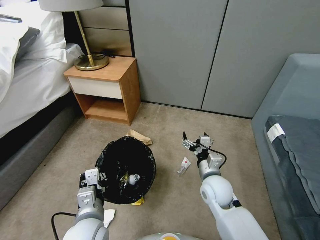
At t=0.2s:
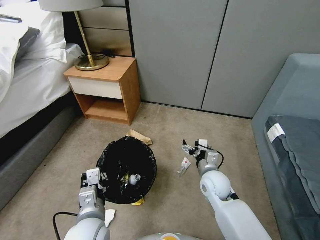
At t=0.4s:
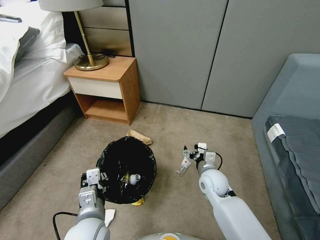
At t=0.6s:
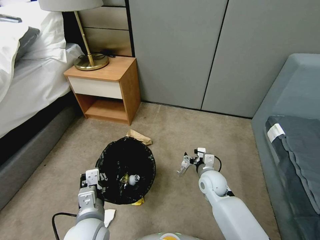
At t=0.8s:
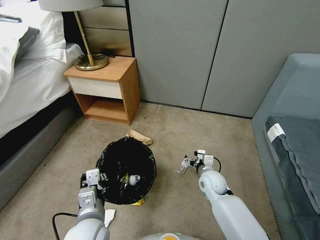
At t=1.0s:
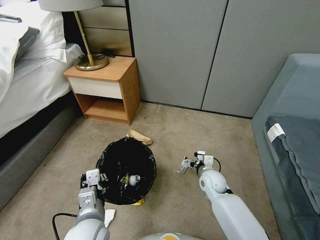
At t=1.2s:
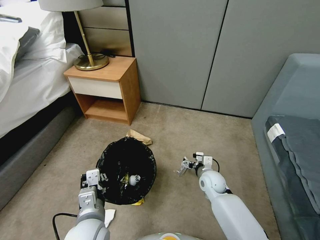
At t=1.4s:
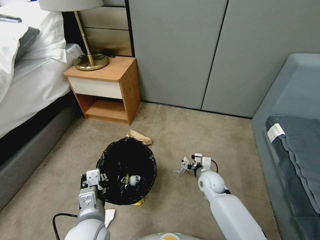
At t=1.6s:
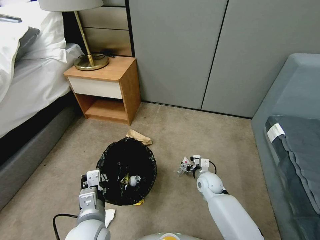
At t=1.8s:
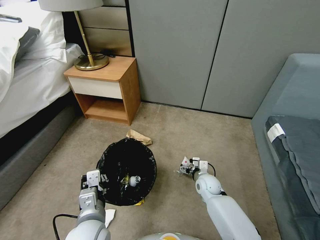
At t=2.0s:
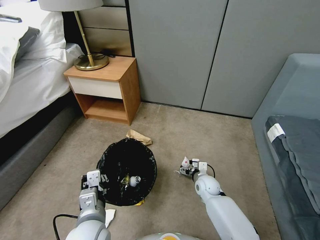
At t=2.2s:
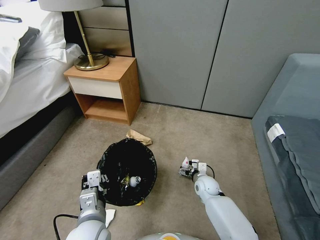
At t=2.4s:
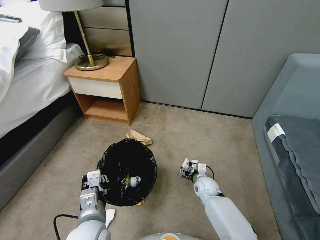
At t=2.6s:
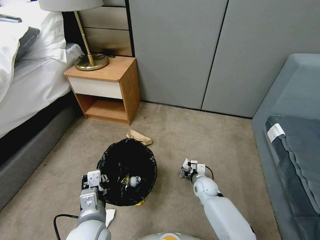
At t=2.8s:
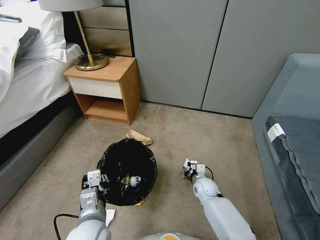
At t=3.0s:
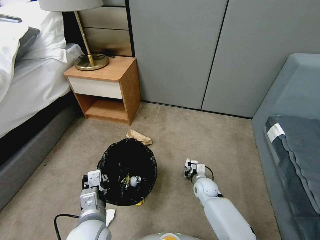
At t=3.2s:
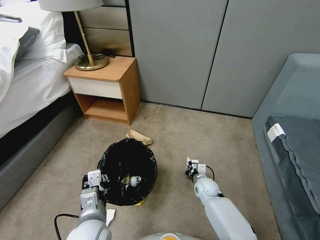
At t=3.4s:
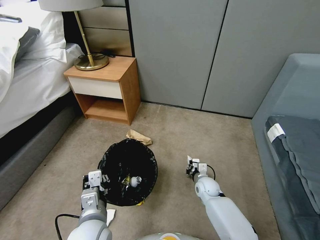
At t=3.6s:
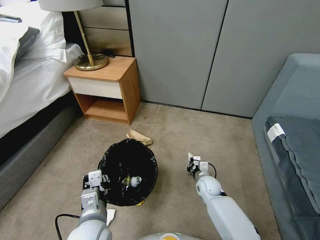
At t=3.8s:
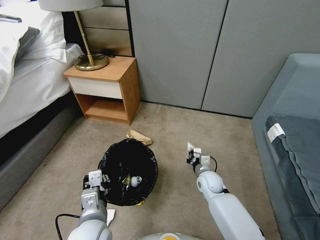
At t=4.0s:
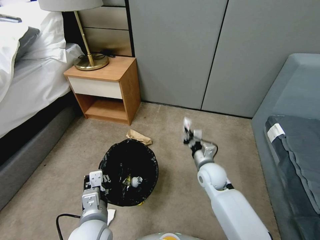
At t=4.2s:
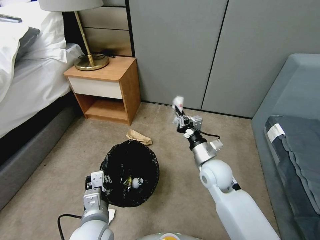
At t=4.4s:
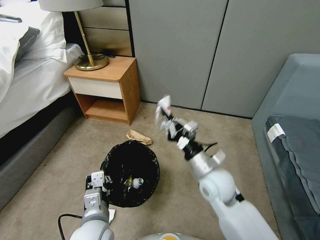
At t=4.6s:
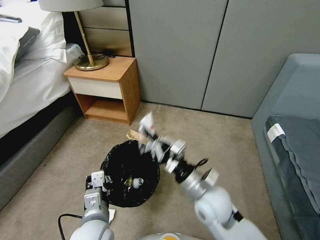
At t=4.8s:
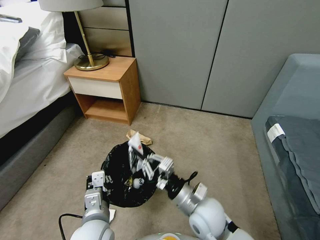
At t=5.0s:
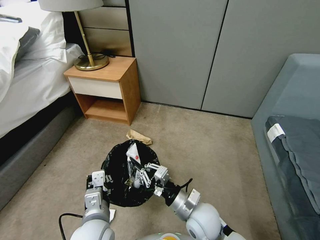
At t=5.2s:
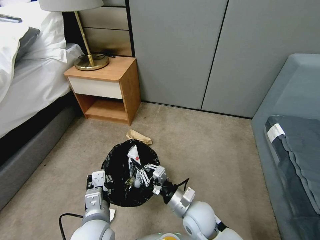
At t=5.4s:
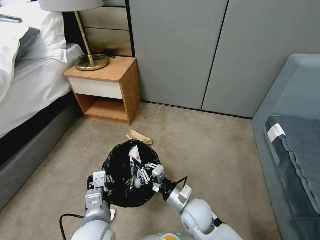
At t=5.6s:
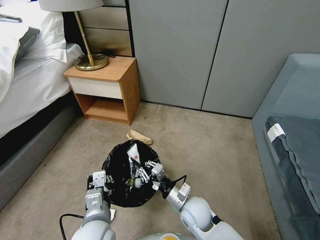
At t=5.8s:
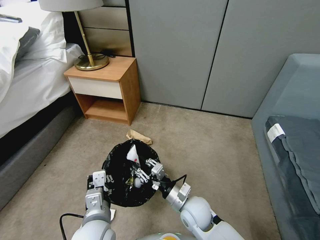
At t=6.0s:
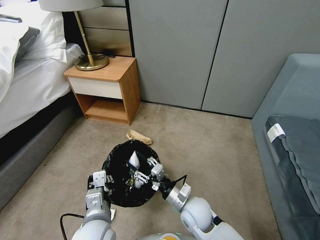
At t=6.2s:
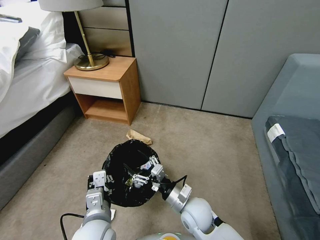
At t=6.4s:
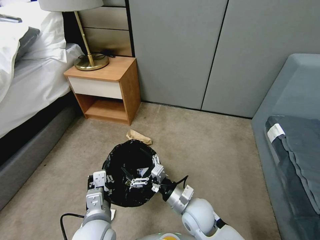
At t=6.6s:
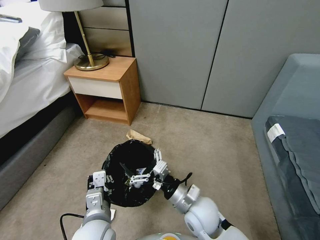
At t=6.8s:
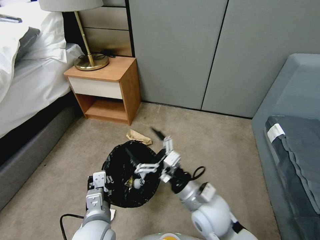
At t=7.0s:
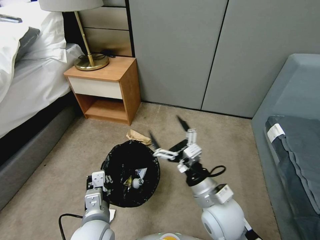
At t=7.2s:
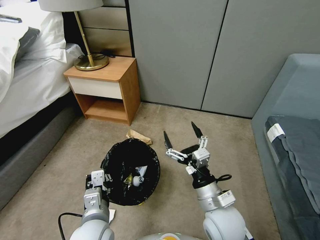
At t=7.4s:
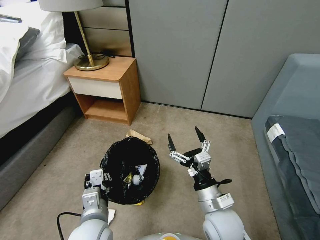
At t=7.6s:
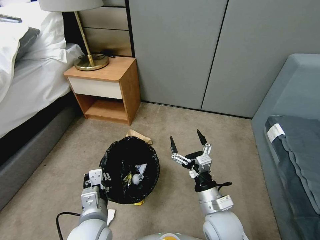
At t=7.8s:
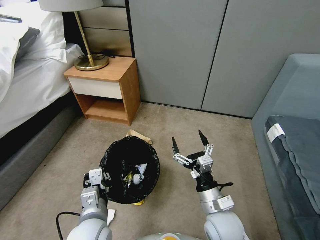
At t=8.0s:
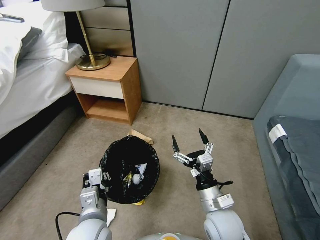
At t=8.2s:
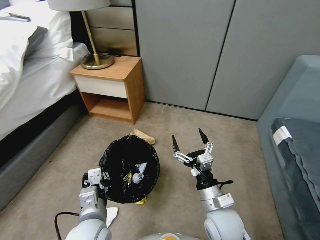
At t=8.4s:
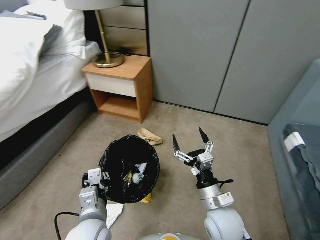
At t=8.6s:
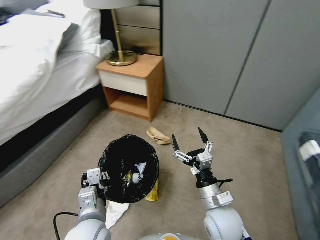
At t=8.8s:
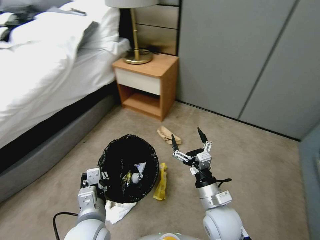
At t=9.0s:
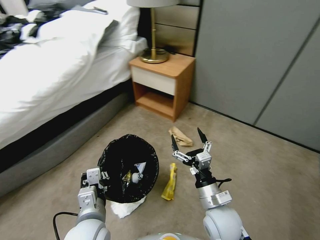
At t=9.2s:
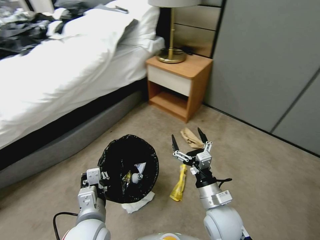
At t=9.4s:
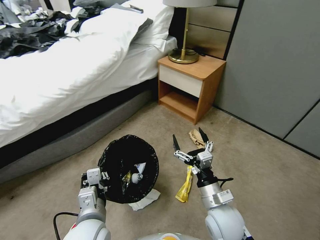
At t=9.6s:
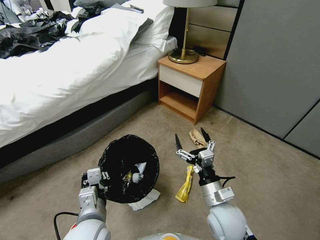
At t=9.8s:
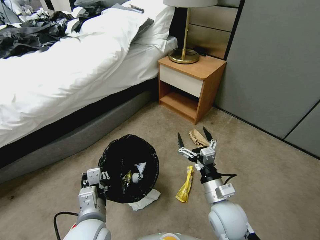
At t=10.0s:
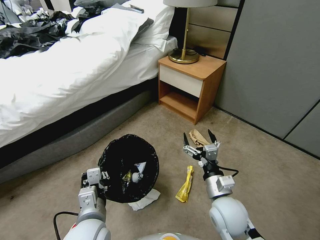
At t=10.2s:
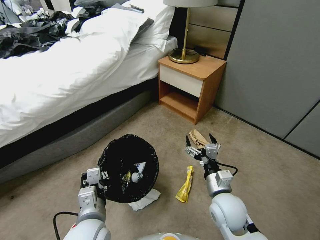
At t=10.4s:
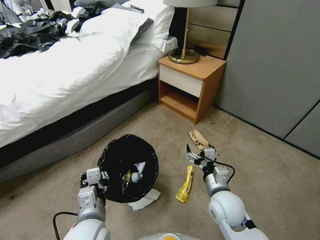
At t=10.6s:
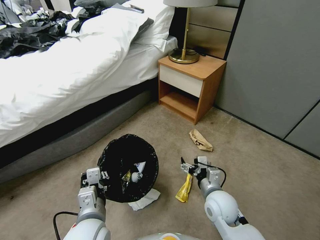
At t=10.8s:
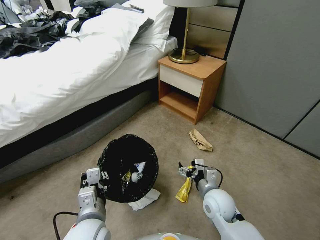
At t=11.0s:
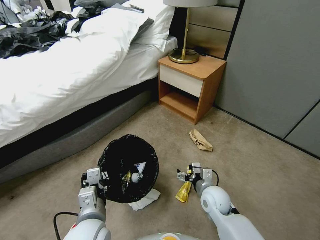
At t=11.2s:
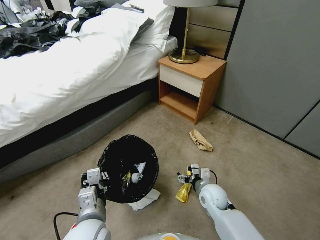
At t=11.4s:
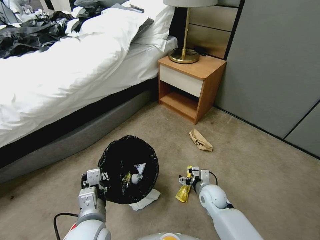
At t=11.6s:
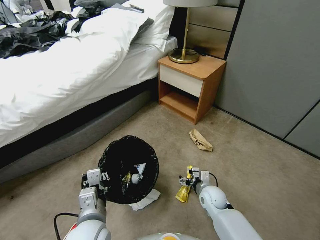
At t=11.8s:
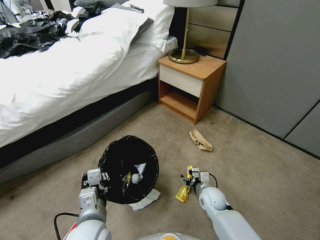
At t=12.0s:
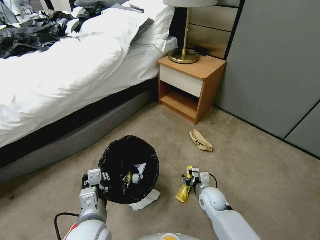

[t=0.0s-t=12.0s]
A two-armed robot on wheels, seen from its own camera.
Task of the whole recording: Pick up the trash bin, then pick up the garbage from the floor and place it into the trash bin.
t=0.0s to t=1.6s: The right gripper heads downward and forward, covering roughly 15 cm.
t=1.6s to t=3.0s: The right gripper heads downward, covering approximately 5 cm, and closes its fingers.
t=3.0s to t=4.4s: The right gripper goes about 25 cm upward.
t=4.4s to t=6.0s: The right gripper is displaced downward, to the left and backward by roughly 15 cm, and opens.
t=6.0s to t=7.6s: The right gripper shifts about 10 cm upward and to the right, and opens up.
t=10.4s to t=12.0s: The right gripper moves downward and forward, some 15 cm, and closes up.

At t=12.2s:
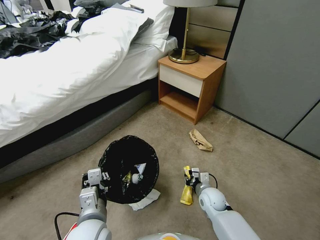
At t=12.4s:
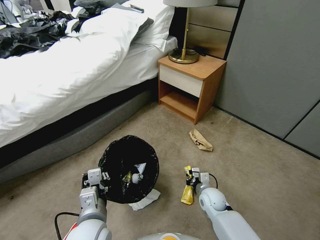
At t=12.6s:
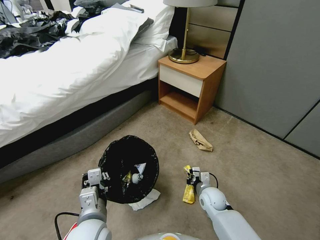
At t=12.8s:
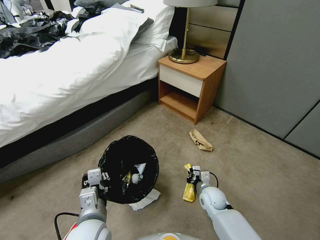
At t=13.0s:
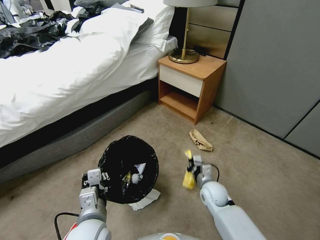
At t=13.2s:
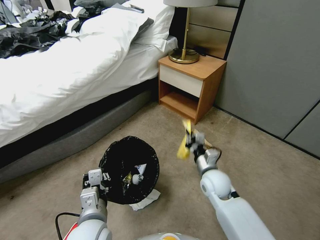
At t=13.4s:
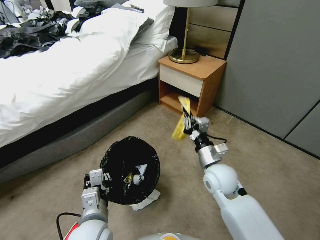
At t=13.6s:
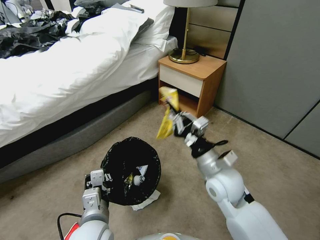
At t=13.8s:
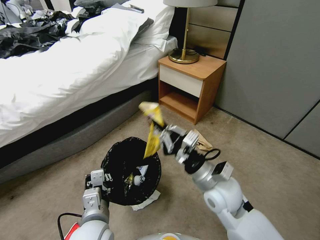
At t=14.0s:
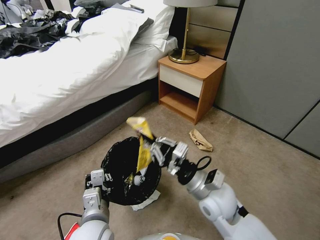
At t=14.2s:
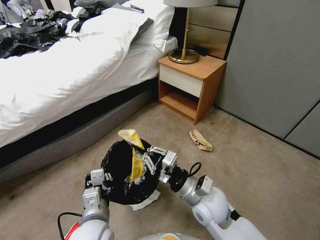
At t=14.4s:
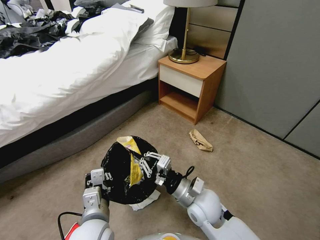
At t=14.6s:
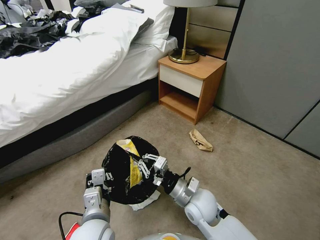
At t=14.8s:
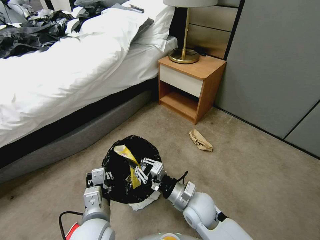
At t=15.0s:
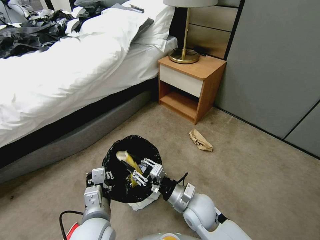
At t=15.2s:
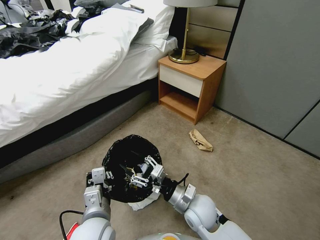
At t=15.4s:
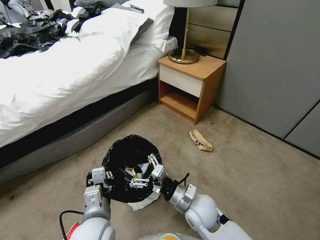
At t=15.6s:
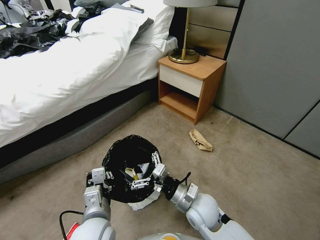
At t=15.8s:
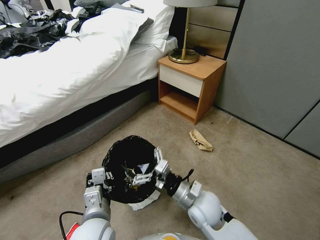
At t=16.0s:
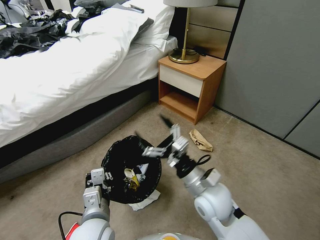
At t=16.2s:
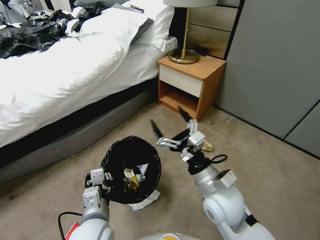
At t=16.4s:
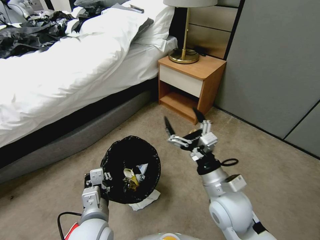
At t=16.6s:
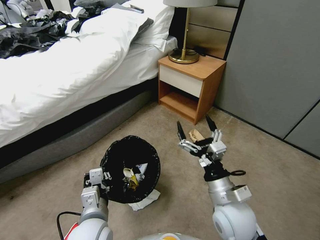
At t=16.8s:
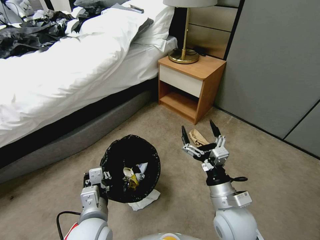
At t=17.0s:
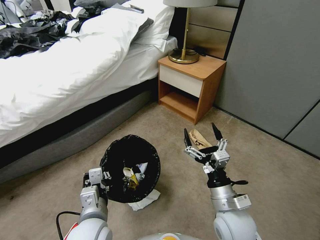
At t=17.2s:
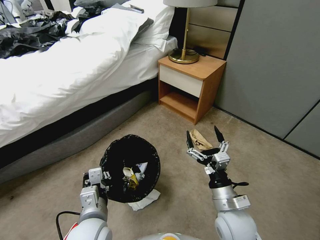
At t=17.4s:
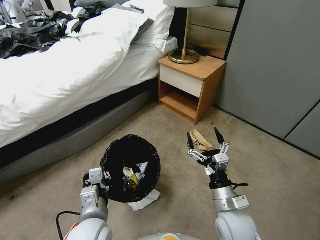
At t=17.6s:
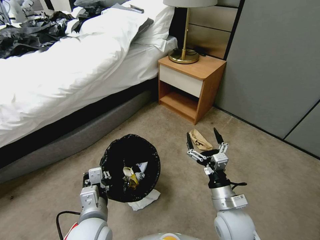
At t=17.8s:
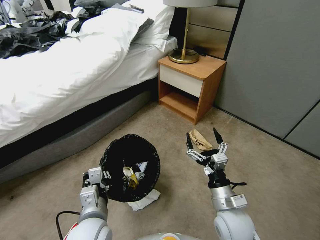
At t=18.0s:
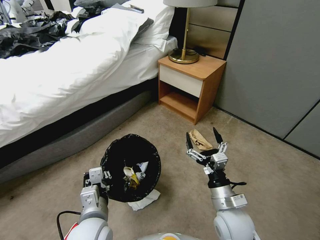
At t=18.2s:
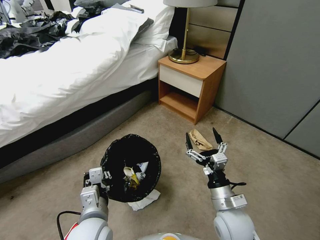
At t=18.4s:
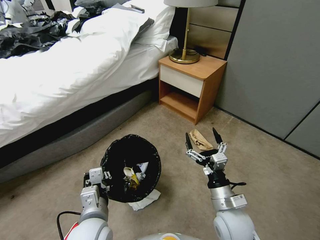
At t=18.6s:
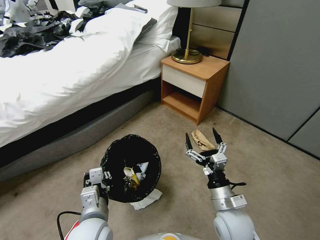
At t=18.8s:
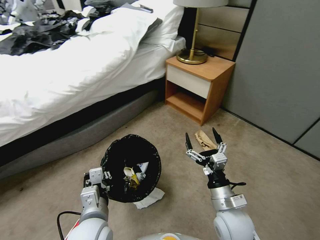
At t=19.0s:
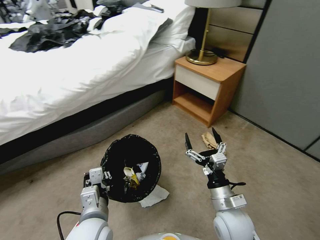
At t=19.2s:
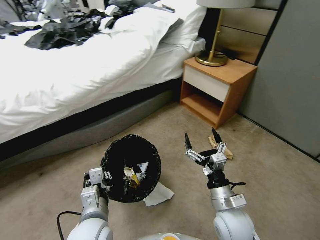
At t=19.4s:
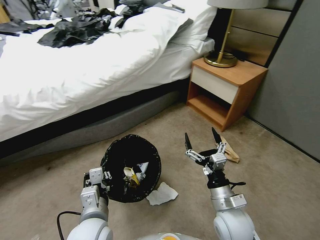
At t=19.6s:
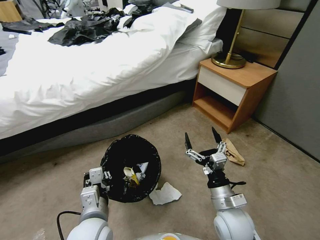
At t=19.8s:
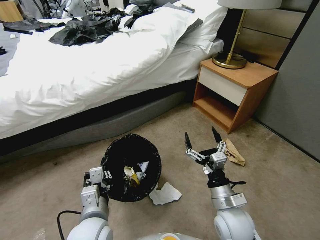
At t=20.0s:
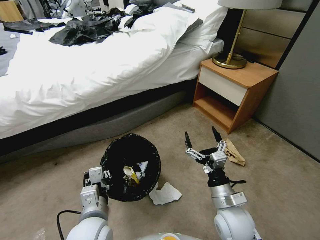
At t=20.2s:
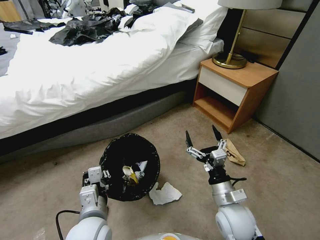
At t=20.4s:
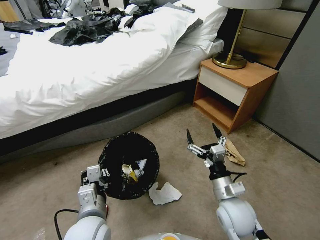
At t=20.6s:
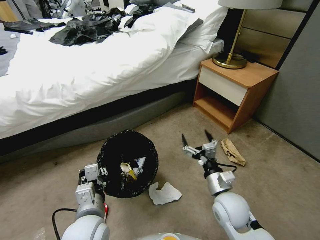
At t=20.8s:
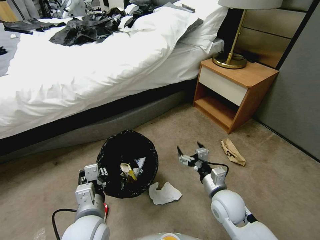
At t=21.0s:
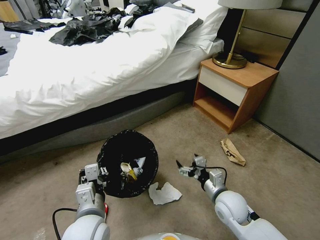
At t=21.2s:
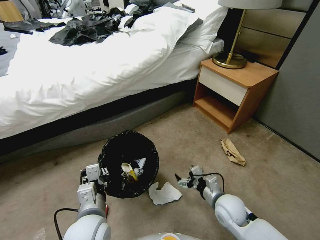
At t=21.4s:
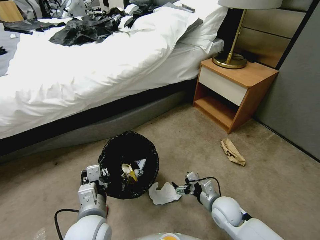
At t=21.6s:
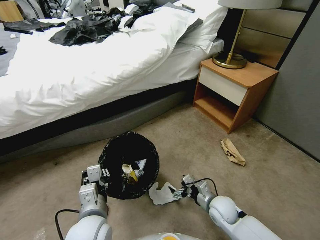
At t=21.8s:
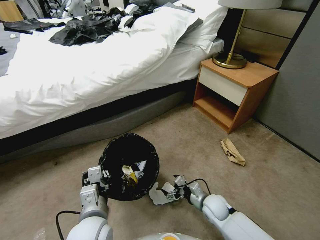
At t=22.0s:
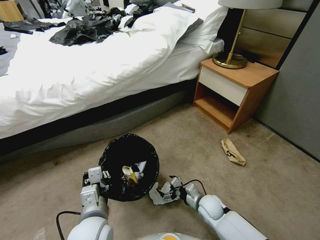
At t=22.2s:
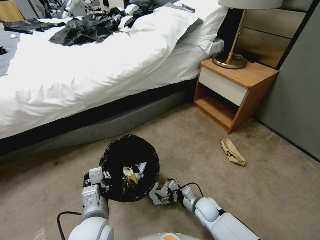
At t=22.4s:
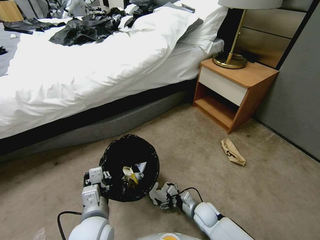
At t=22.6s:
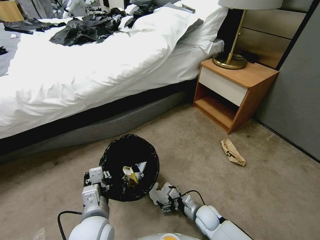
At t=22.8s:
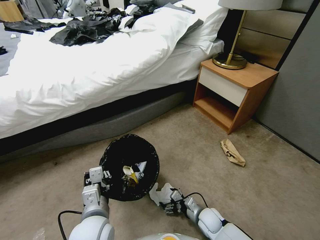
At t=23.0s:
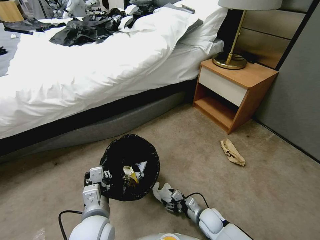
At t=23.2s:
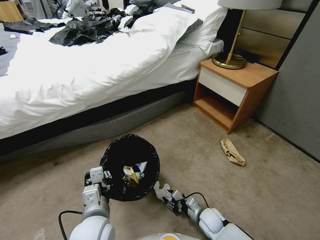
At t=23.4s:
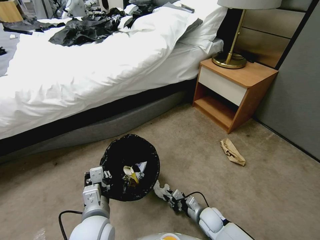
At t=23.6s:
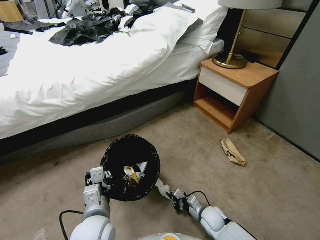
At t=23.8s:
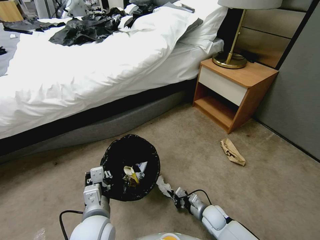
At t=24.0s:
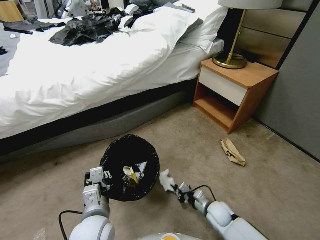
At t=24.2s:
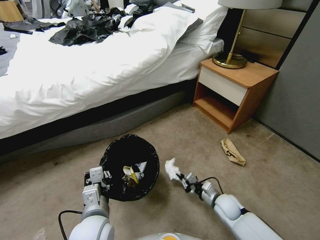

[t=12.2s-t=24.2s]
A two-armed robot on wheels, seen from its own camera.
Task of the whole recording: Pick up the trash bin, then pick up the garbage from the floor and place it into the trash bin.
t=12.2s to t=13.8s: The right gripper shifts roughly 25 cm upward.
t=13.8s to t=15.2s: The right gripper goes roughly 10 cm downward, and opens up.
t=15.2s to t=16.6s: The right gripper heads upward and to the right, covering about 10 cm, and opens up.
t=16.6s to t=18.2s: The right gripper shifts some 5 cm downward.
t=19.8s to t=21.2s: The right gripper goes about 10 cm downward and forward.
t=21.2s to t=22.6s: The right gripper heads downward, covering about 15 cm.
t=22.6s to t=24.2s: The right gripper travels to the right and upward by approximately 10 cm, and closes its fingers.
